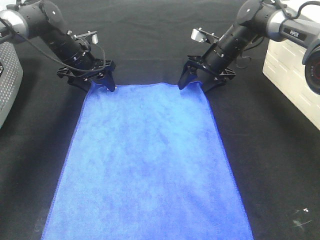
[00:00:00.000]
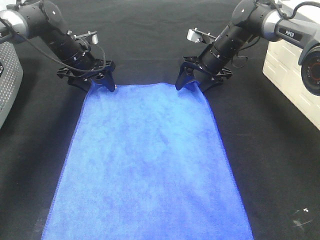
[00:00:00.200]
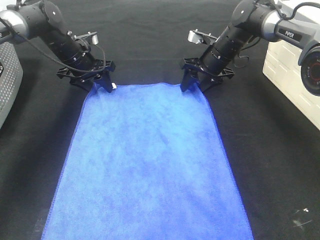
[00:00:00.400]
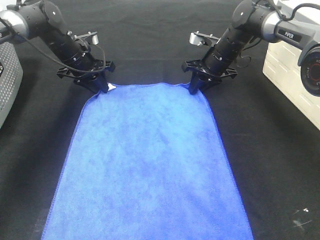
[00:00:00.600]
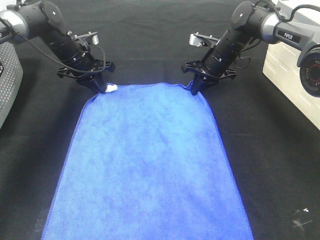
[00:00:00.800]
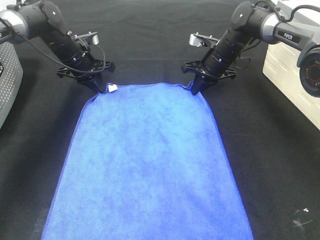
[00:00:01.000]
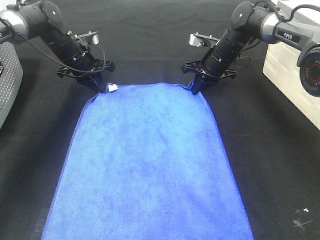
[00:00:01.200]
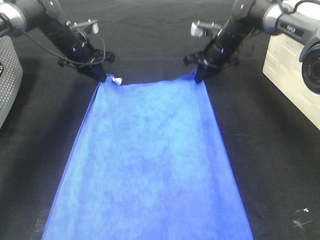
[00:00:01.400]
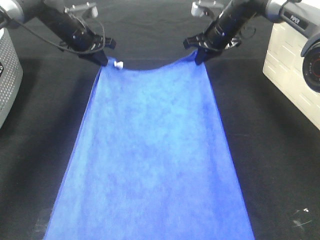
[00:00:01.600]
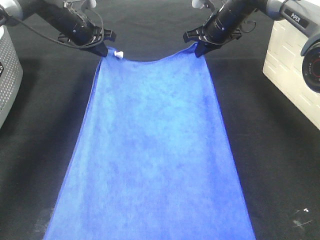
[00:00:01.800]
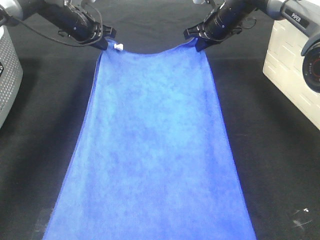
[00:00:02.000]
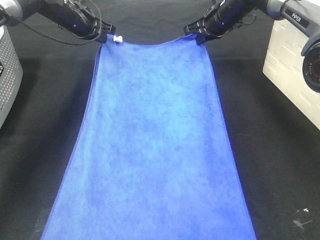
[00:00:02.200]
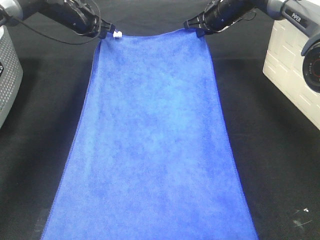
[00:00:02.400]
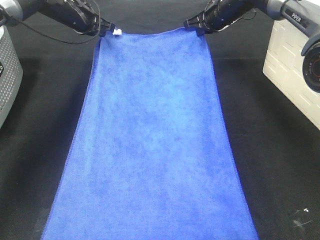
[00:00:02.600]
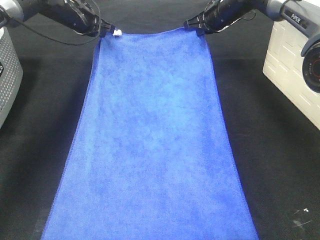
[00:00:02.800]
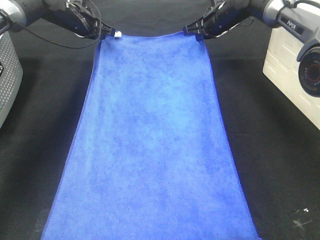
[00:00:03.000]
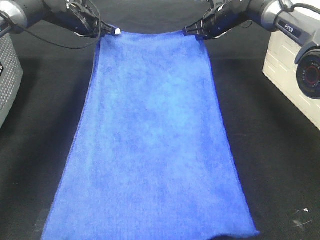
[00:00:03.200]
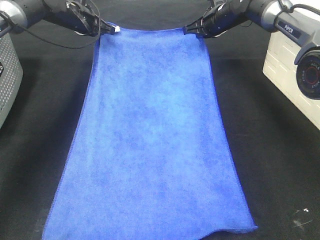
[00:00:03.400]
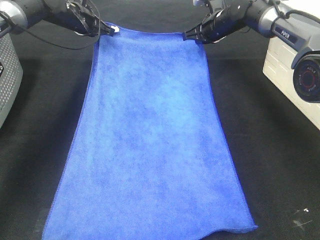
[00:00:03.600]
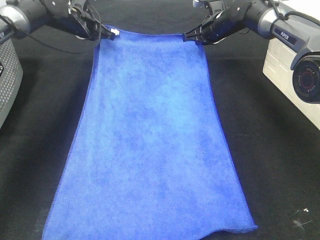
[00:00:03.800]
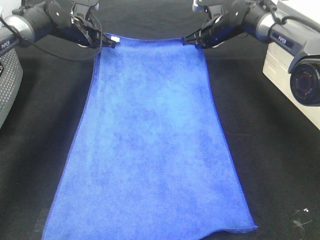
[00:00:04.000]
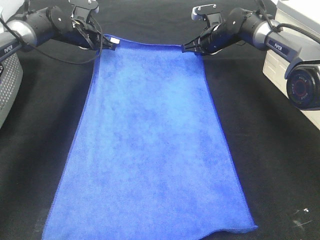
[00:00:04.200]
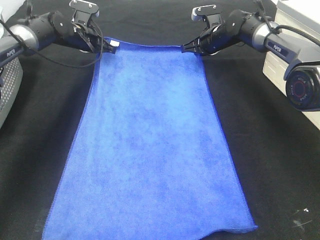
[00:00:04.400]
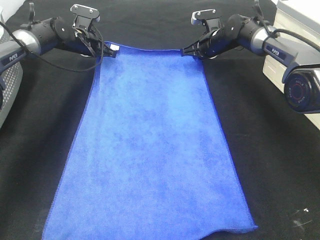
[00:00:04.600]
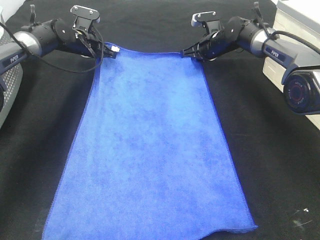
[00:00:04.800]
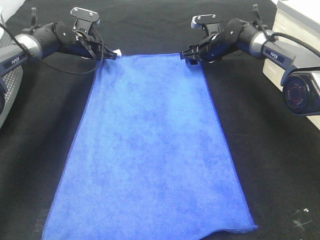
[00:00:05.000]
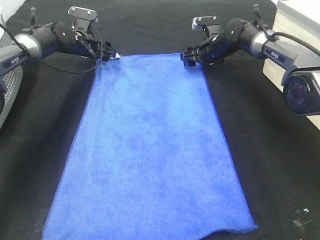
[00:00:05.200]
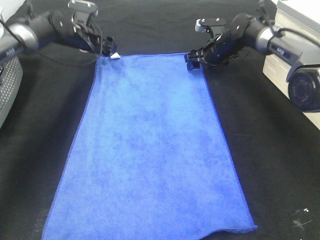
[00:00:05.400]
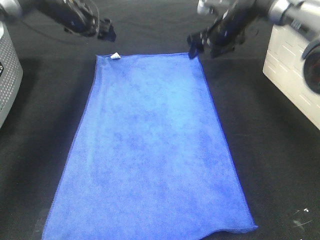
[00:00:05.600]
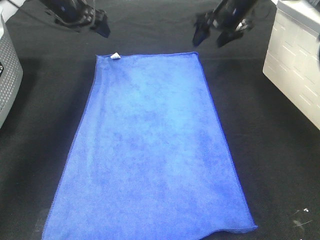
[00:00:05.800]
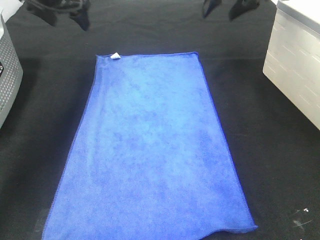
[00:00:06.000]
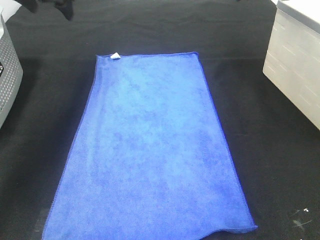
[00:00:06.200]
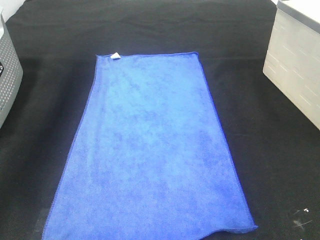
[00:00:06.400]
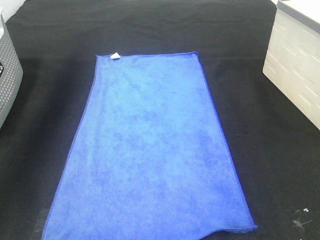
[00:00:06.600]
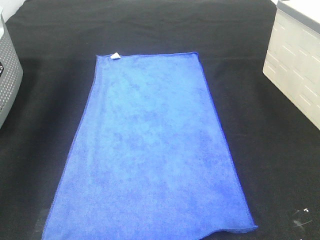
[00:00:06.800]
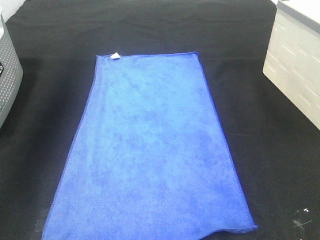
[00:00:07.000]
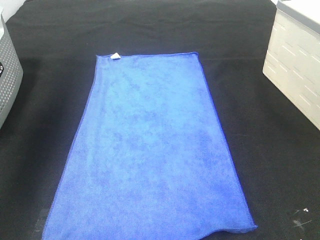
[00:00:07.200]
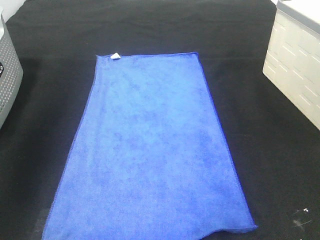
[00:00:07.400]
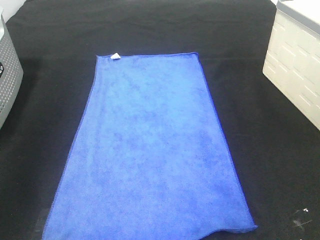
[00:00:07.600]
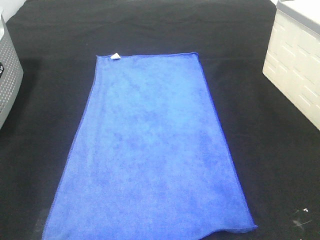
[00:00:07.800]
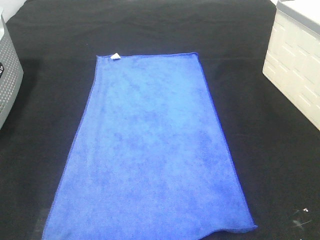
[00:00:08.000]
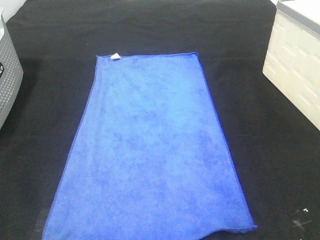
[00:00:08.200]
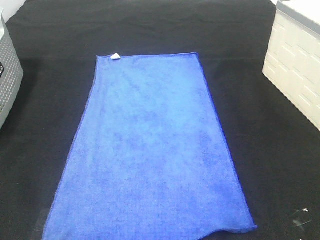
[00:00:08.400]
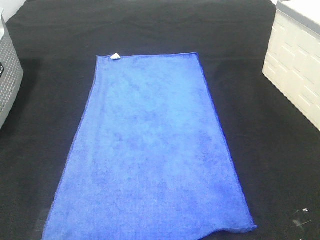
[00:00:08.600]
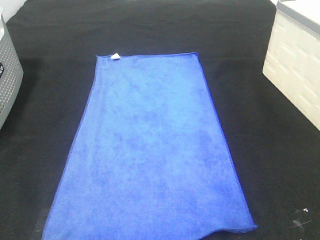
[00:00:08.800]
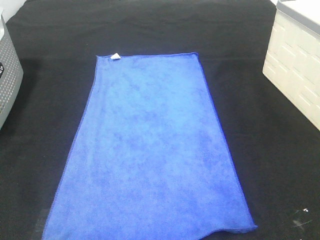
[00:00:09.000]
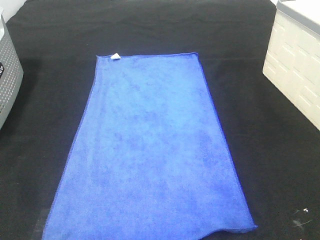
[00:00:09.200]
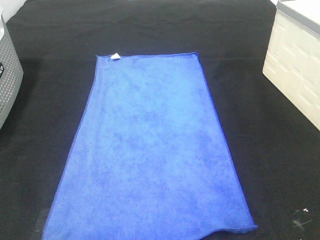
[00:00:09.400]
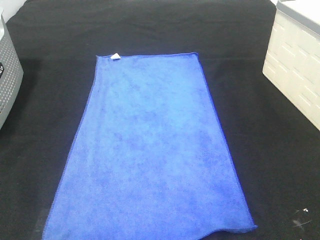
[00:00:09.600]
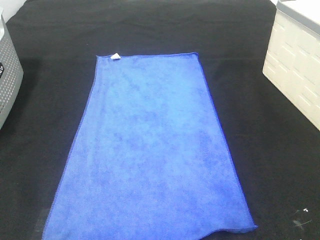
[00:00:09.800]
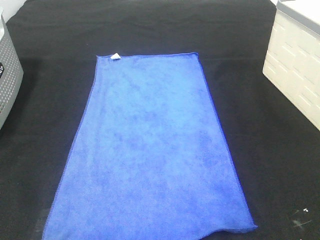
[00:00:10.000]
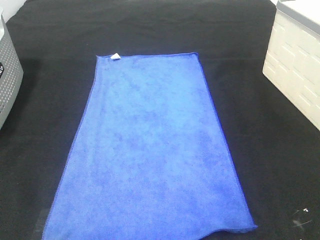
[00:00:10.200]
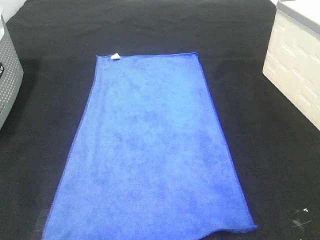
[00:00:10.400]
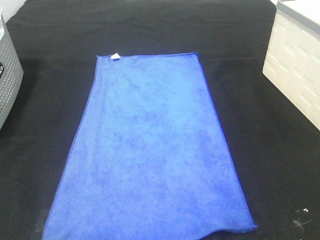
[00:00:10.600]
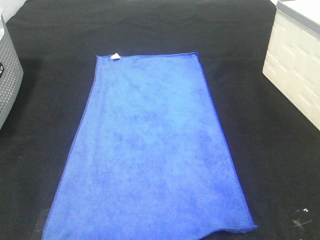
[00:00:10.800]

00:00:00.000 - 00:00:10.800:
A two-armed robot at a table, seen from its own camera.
Task of the whole recording: Remove the towel and place it.
00:00:00.000 - 00:00:01.600: Both grippers travel together upward, roughly 5 cm. The left gripper closes its fingers, while the right gripper closes its fingers.
00:00:03.000 - 00:00:04.600: Both grippers move downward, about 5 cm.
00:00:04.600 - 00:00:06.200: The left gripper travels upward and backward by about 20 cm, and opens its fingers; the right gripper travels upward by about 25 cm, and opens up.
00:00:06.200 - 00:00:07.800: Both grippers travel together backward, some 40 cm.

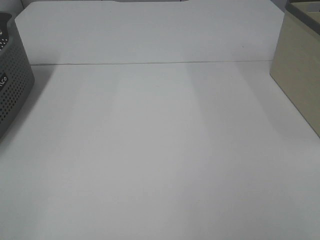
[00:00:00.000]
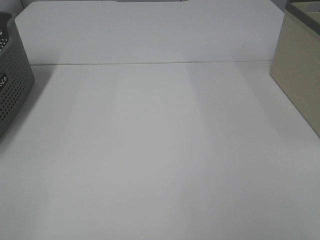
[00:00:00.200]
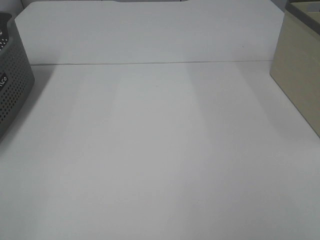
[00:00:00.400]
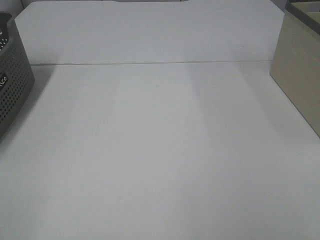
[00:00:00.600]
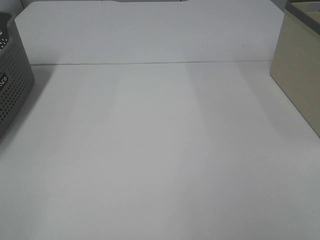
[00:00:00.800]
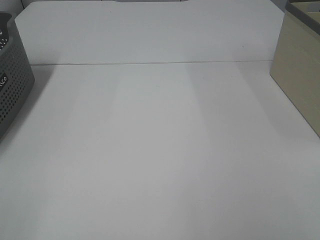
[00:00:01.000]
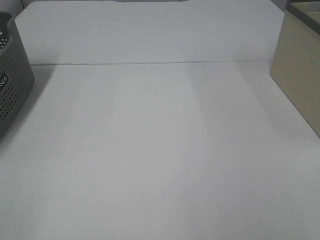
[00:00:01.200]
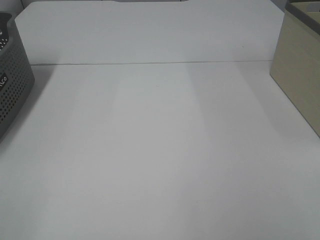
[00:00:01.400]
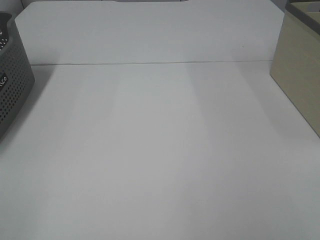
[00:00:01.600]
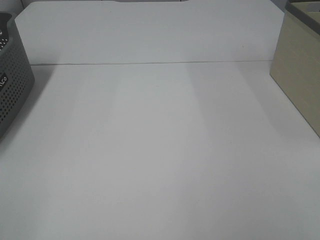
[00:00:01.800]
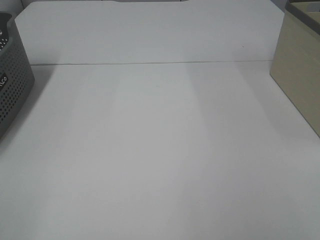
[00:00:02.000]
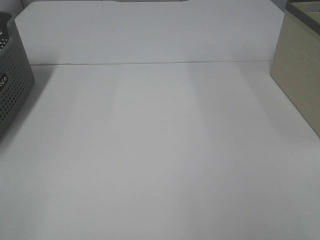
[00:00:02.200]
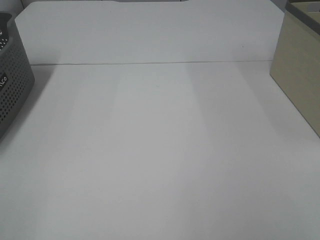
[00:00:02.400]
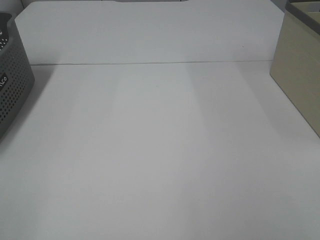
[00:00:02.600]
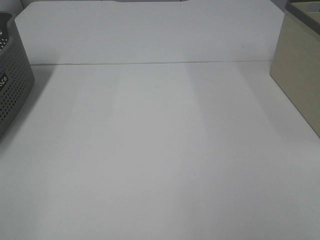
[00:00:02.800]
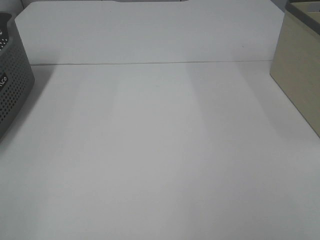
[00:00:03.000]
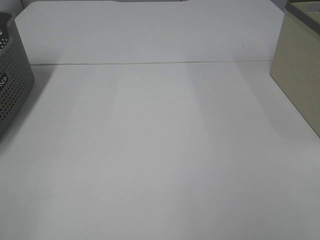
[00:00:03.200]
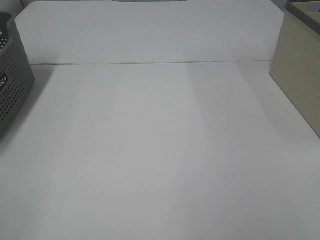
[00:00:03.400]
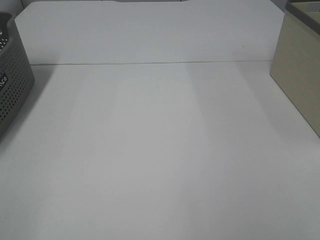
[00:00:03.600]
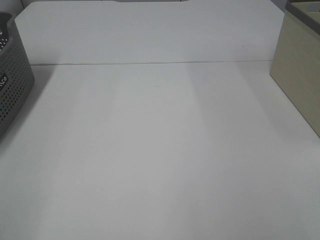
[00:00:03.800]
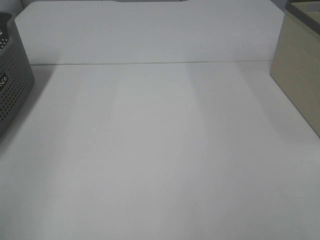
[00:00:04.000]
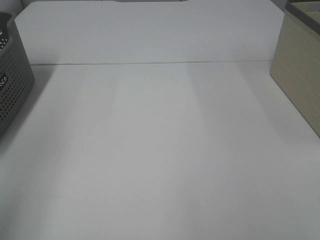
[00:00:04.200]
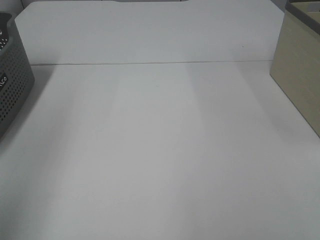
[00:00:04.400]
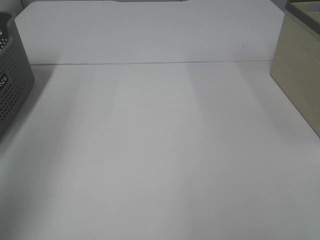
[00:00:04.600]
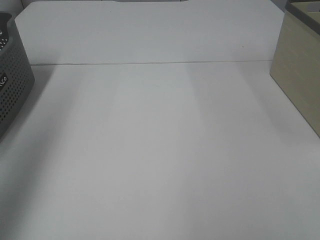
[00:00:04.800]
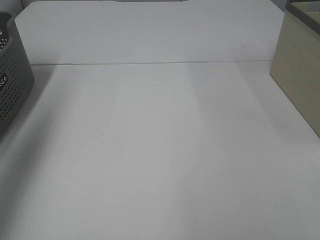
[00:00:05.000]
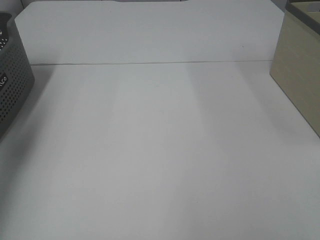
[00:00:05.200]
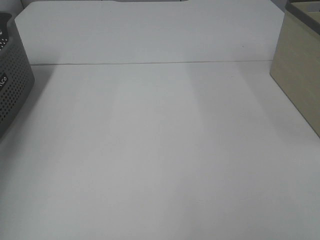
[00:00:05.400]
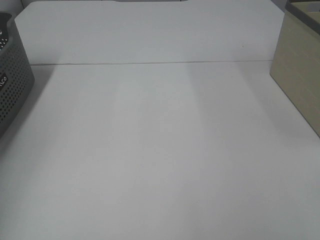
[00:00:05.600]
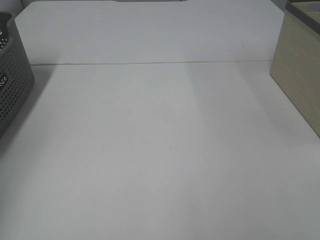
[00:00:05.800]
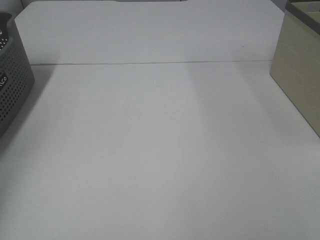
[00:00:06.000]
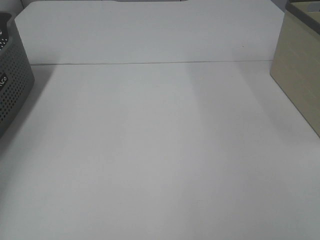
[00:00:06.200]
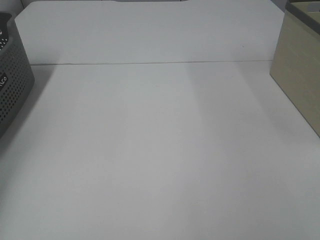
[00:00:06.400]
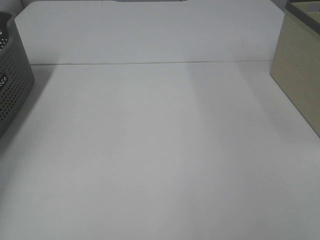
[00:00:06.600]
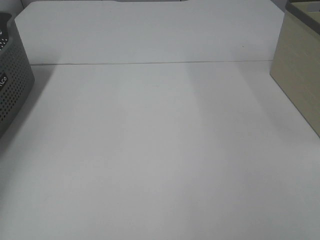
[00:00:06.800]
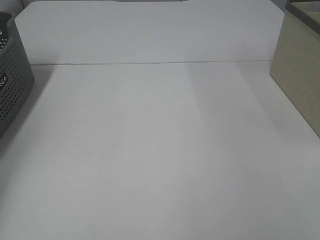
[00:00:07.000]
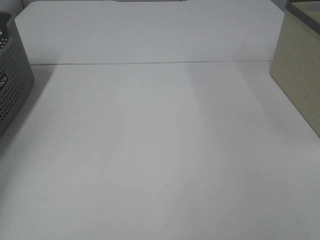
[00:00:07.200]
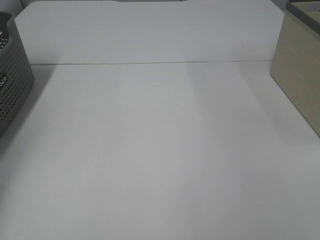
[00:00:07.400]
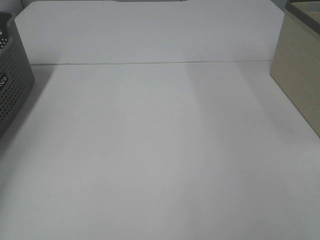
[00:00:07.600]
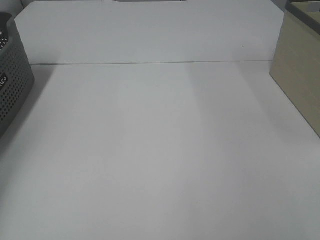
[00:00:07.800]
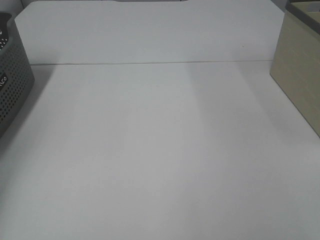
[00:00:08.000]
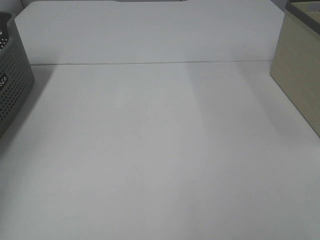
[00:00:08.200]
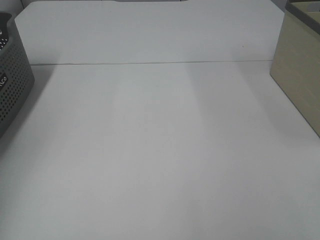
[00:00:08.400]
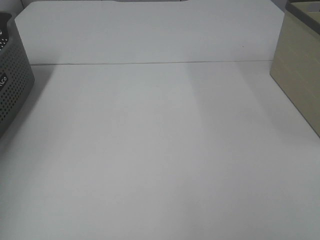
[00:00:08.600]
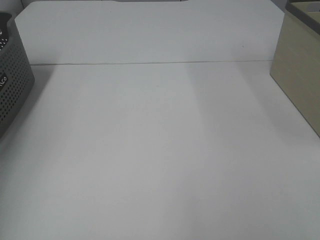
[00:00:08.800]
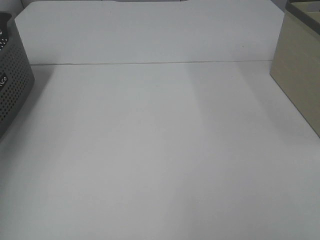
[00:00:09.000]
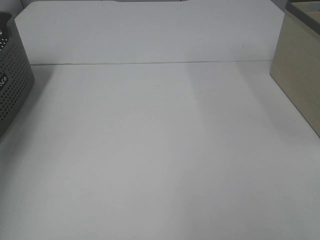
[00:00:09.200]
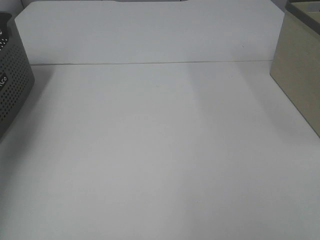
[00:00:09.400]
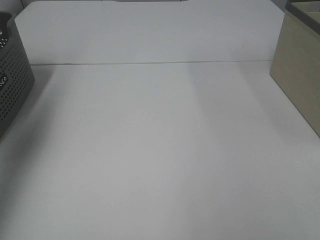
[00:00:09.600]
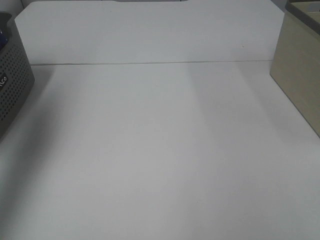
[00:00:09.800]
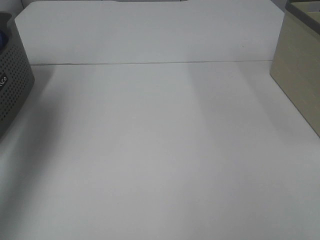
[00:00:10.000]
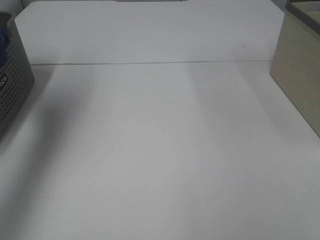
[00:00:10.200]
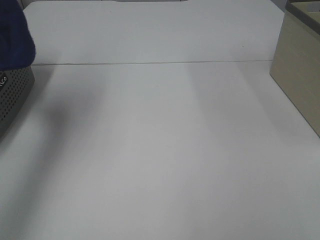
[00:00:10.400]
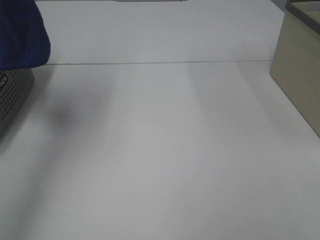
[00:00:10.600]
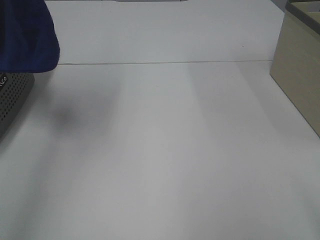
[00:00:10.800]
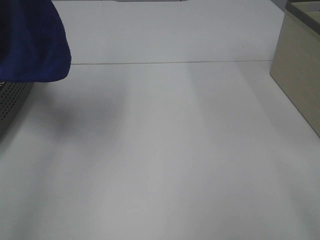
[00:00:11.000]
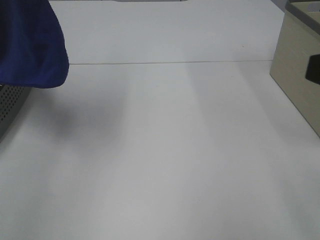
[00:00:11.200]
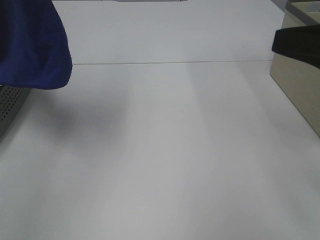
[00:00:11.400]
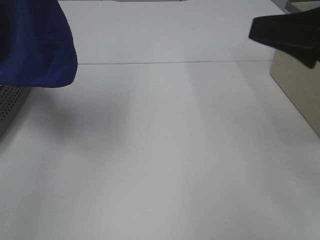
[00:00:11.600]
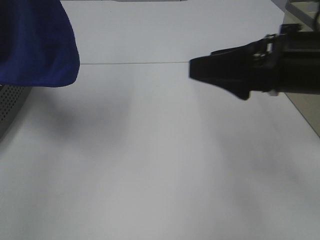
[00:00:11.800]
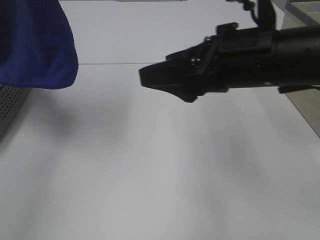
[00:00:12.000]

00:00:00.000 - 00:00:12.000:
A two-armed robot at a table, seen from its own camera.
Task of the whole recording: Remove the towel and place it.
00:00:00.000 - 00:00:03.000: Both grippers stay put.
00:00:03.000 - 00:00:04.400: The left gripper heads forward and upward, covering some 20 cm.
00:00:04.400 - 00:00:06.000: The left gripper is displaced forward, downward and to the left by some 35 cm.
00:00:09.000 - 00:00:10.400: The left gripper heads to the right and upward, covering about 15 cm.
00:00:10.400 - 00:00:12.000: The left gripper travels to the right by approximately 5 cm; the right gripper travels forward and to the left by some 30 cm.
